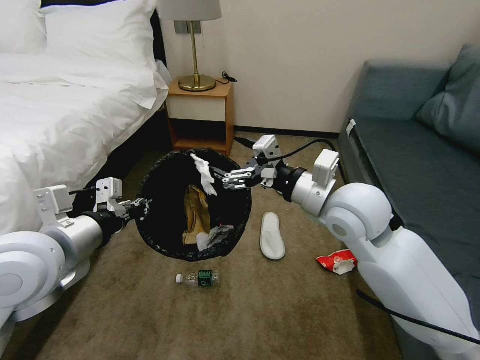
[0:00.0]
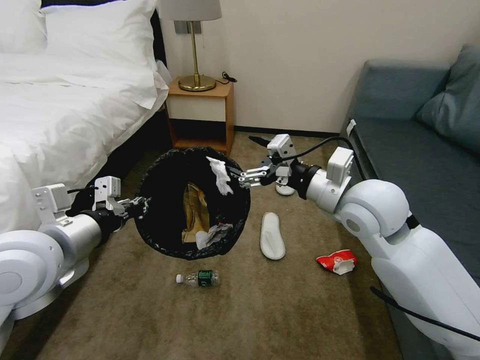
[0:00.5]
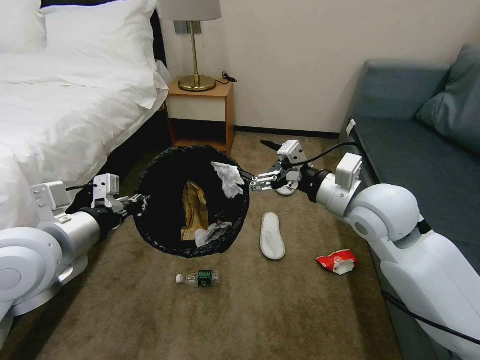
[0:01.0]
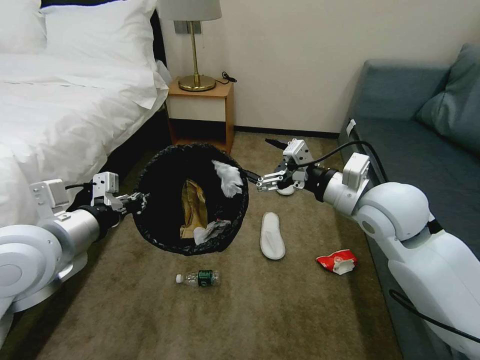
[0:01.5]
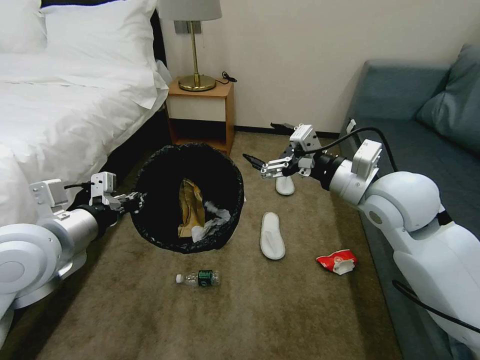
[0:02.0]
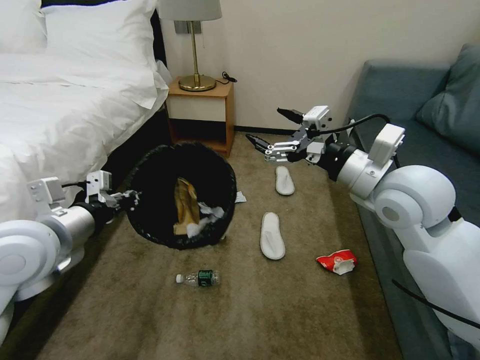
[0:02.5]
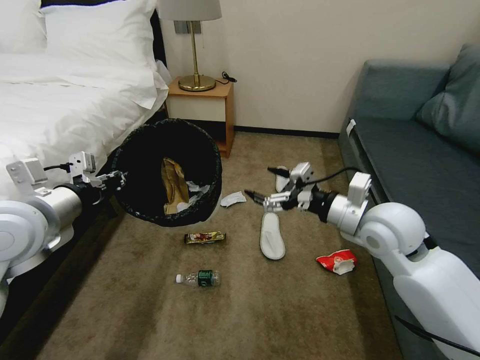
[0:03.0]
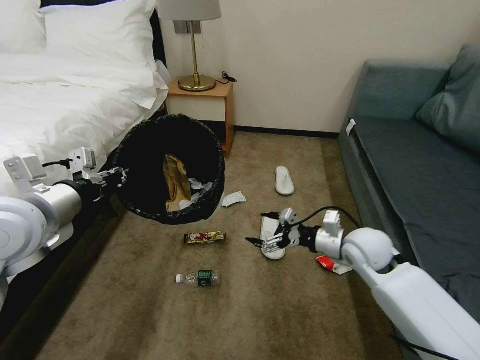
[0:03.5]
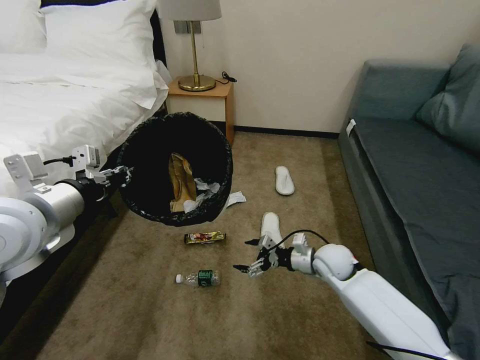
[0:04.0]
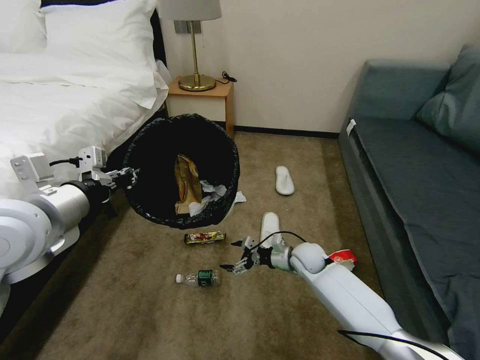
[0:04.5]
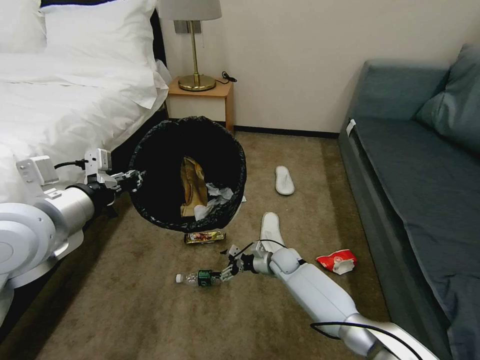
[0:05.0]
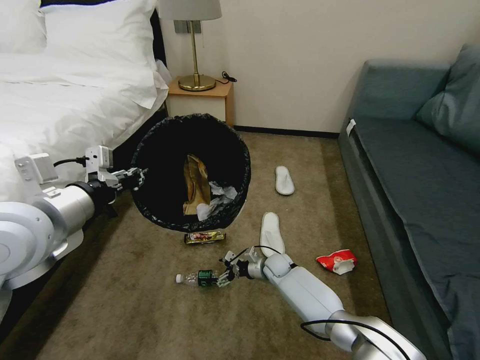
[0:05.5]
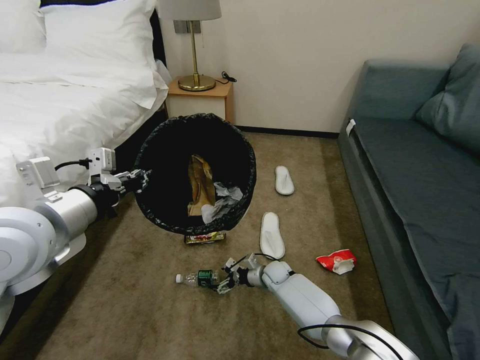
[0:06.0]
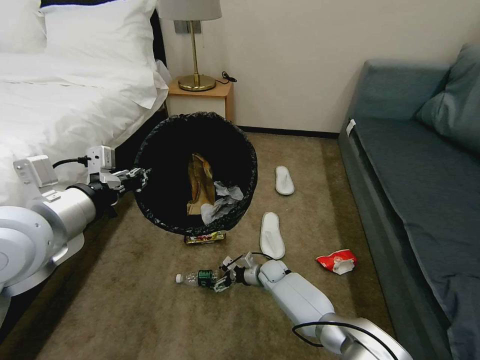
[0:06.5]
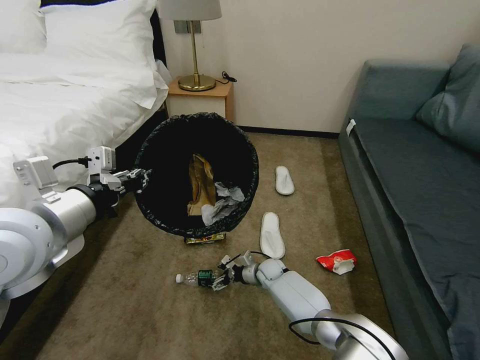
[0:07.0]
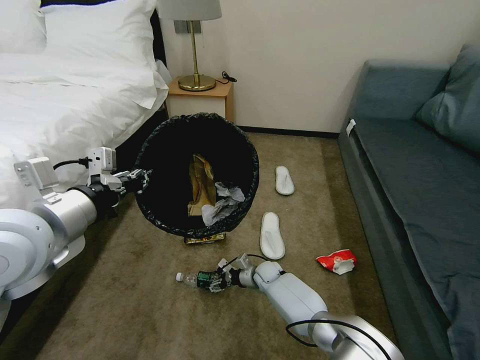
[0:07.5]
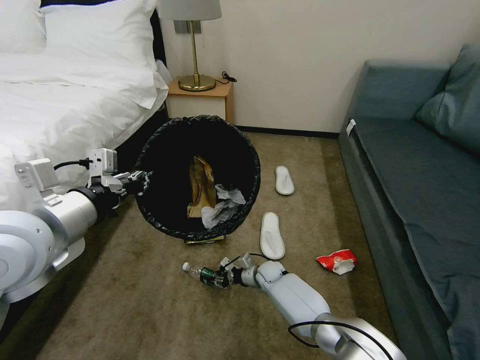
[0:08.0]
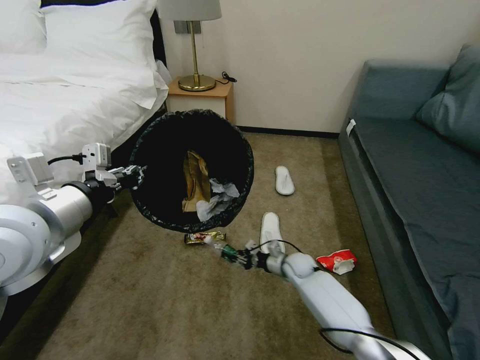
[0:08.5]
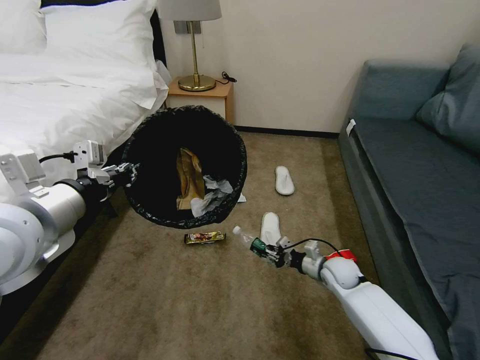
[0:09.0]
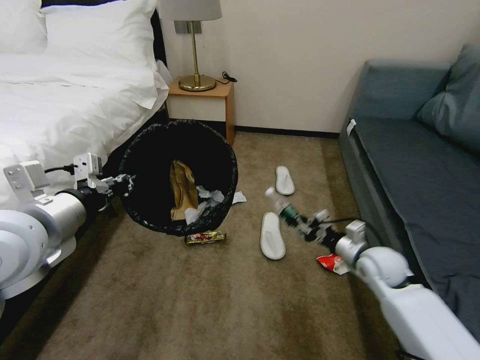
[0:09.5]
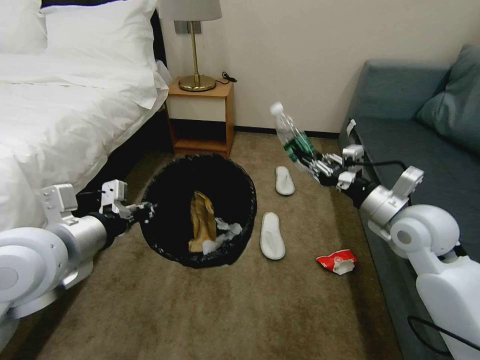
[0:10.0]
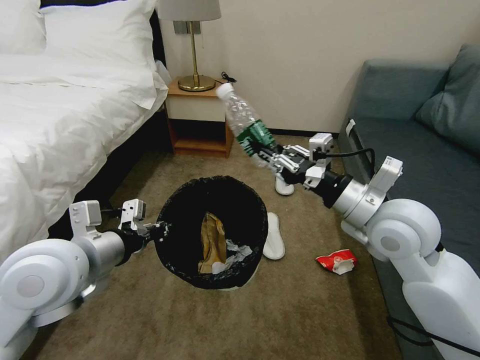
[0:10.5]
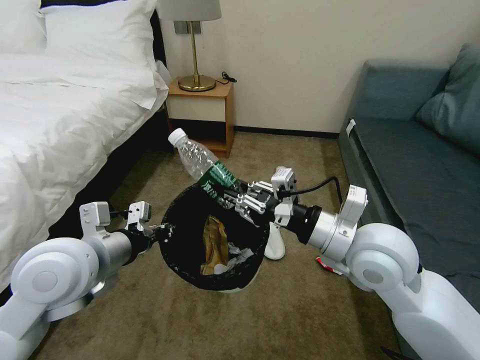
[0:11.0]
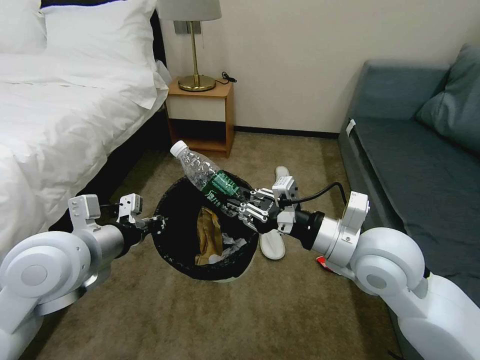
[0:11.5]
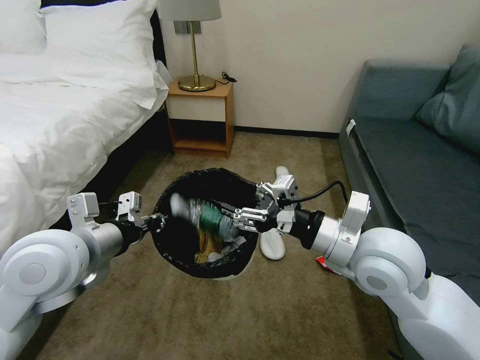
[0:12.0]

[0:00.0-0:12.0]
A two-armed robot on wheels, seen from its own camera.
Task of the whole recording: Pick up the trash bin, then pick up the garbage on the floor and place it into the trash bin.
0:00.0 to 0:02.0: The right gripper moves to the right, approximately 5 cm.
0:02.0 to 0:04.0: The right gripper goes some 30 cm downward.
0:04.0 to 0:06.0: The right gripper moves downward and to the left, roughly 20 cm.
0:06.0 to 0:08.0: The right gripper closes its fingers.
0:08.0 to 0:10.0: The right gripper moves upward and to the right, roughly 50 cm.
0:10.0 to 0:12.0: The right gripper travels to the left and backward by roughly 15 cm, and opens up.

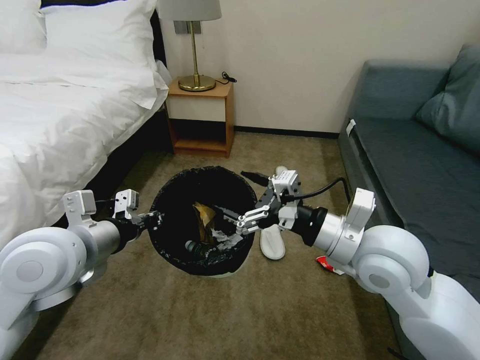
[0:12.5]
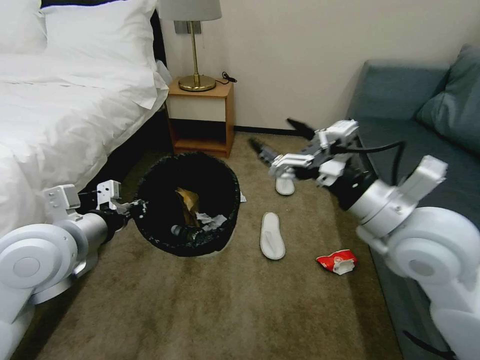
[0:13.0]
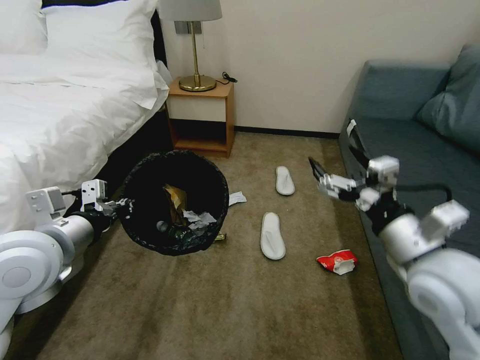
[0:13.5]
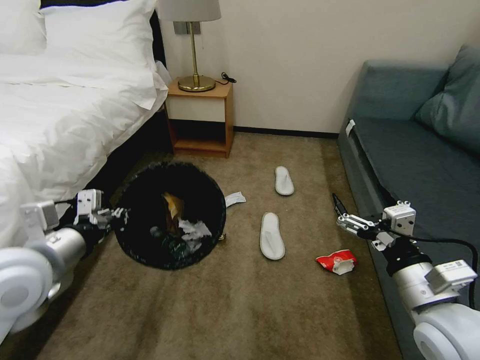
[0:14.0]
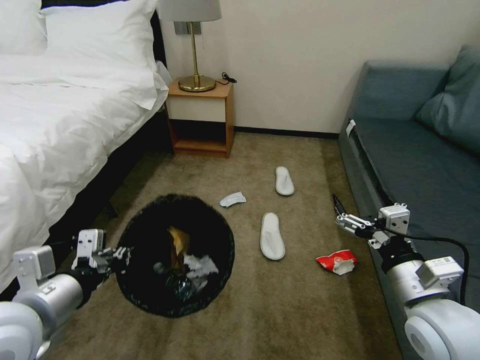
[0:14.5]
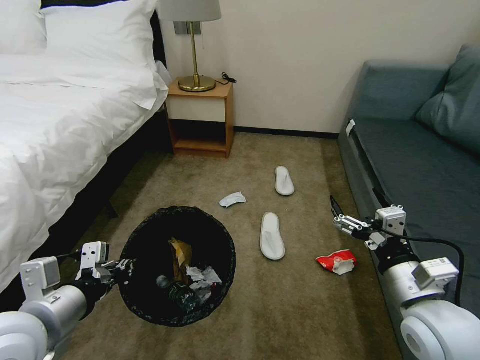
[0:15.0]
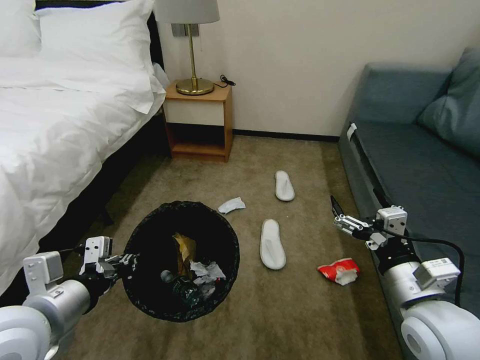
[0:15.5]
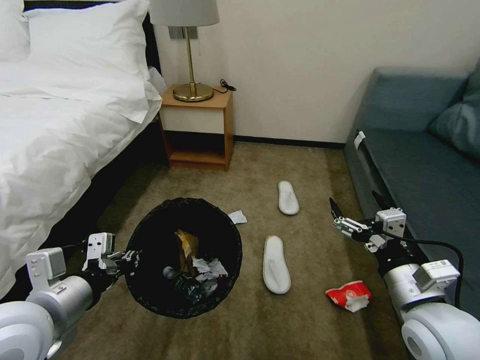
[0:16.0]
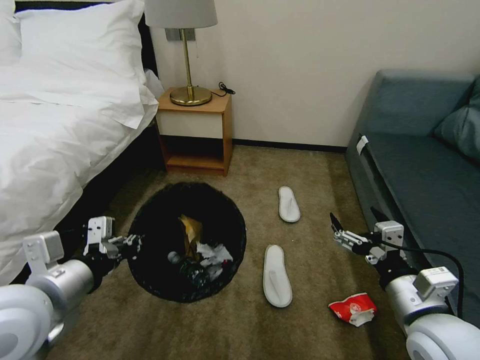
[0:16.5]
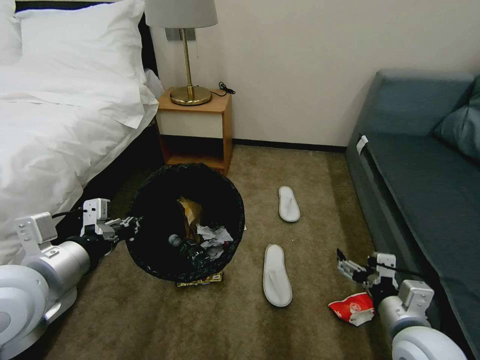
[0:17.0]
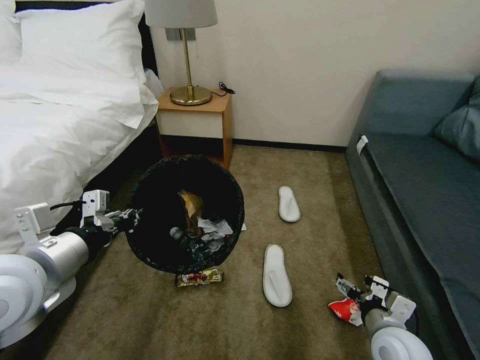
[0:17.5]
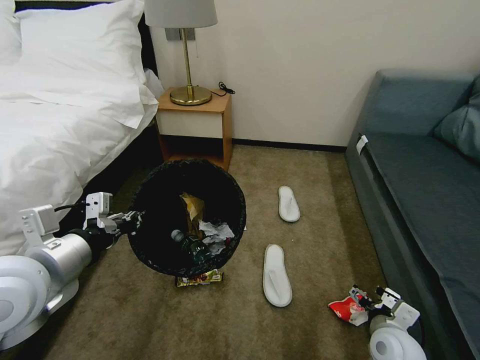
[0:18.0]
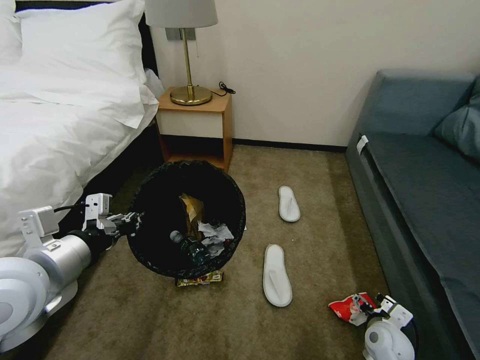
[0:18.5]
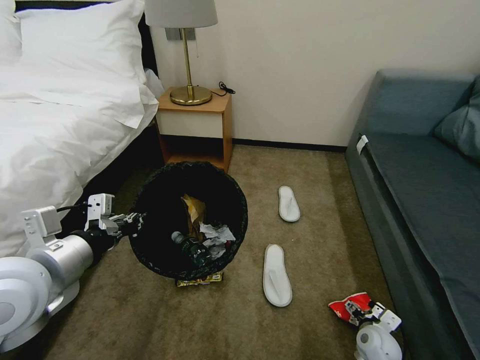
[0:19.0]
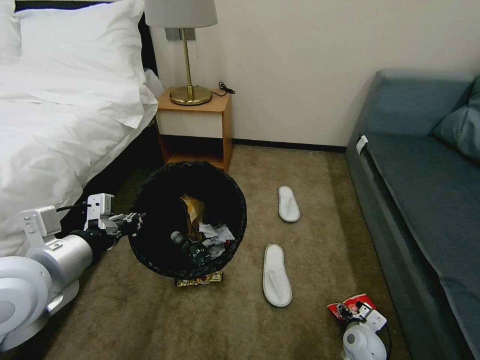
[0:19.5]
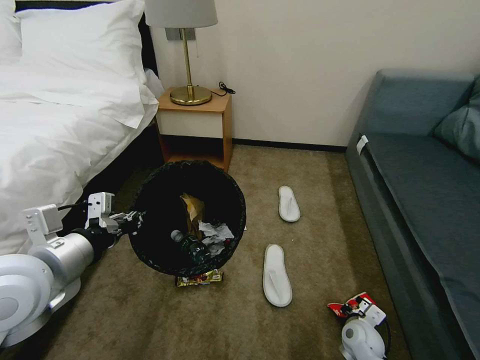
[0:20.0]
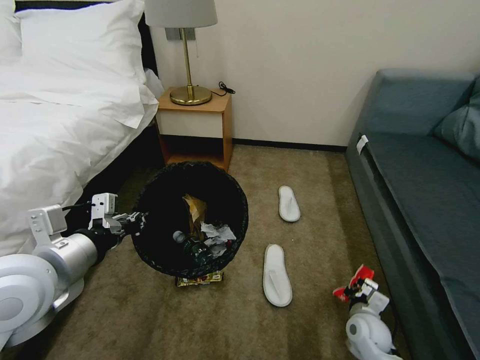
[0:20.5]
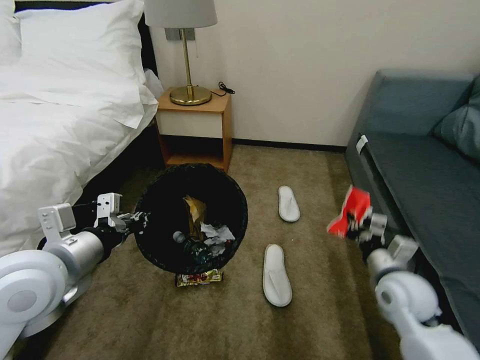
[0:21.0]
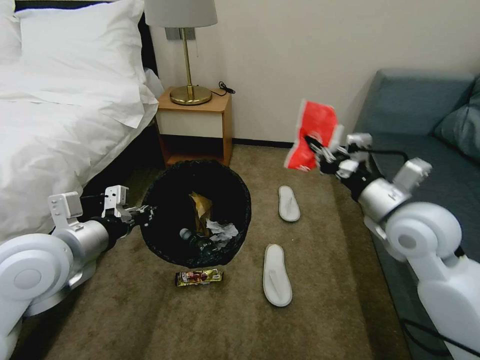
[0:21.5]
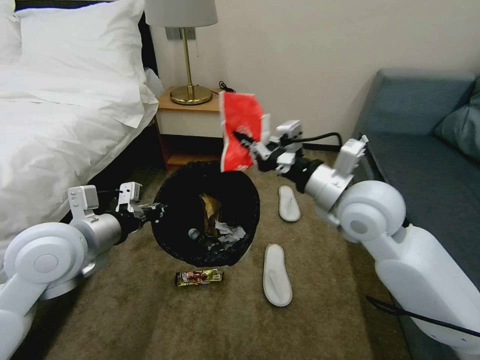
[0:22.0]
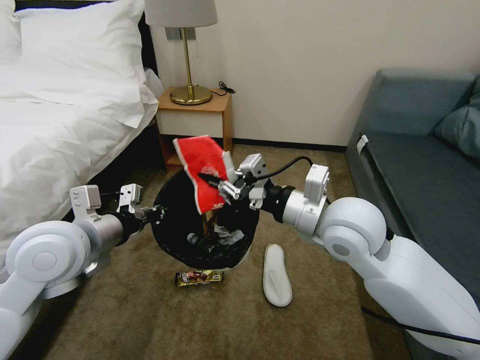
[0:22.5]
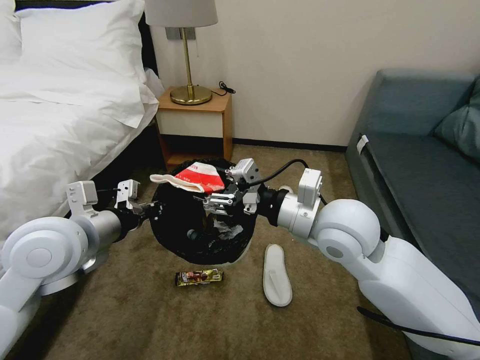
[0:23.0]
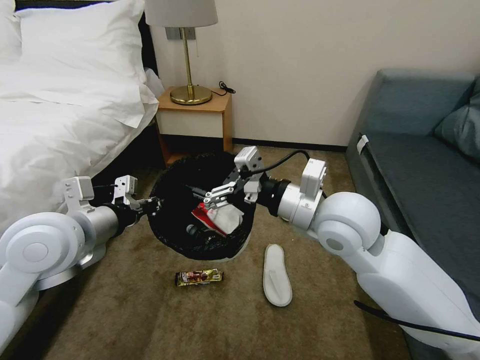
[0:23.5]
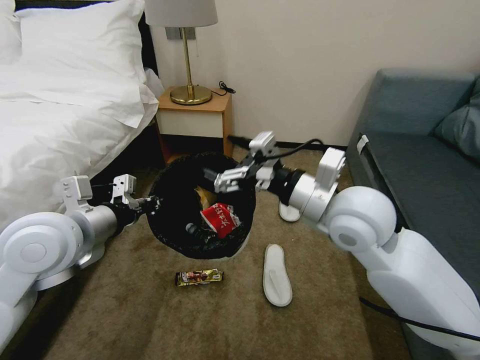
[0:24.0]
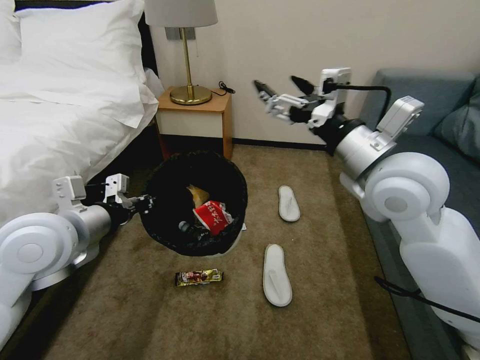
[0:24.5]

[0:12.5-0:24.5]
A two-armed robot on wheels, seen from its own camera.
Task of the whole recording: Pick up the trash bin, then pick up the garbage on the floor and place it into the trash bin.
0:12.5 to 0:14.5: The right gripper heads to the right, downward and backward, covering roughly 15 cm. The left gripper shifts about 10 cm backward.
0:16.5 to 0:18.5: The right gripper heads downward, covering approximately 25 cm.
0:18.5 to 0:20.5: The right gripper closes up.
0:20.5 to 0:22.5: The left gripper heads forward, covering roughly 5 cm; the right gripper moves upward and to the left, roughly 40 cm.
0:22.5 to 0:24.5: The right gripper goes roughly 10 cm upward and to the right, and opens its fingers.

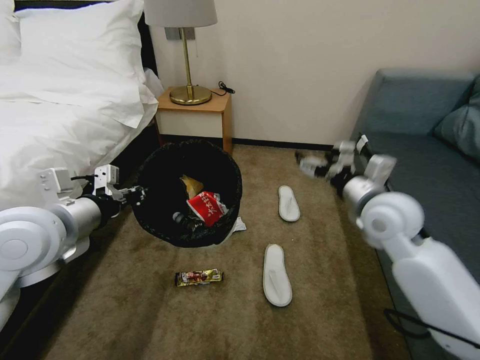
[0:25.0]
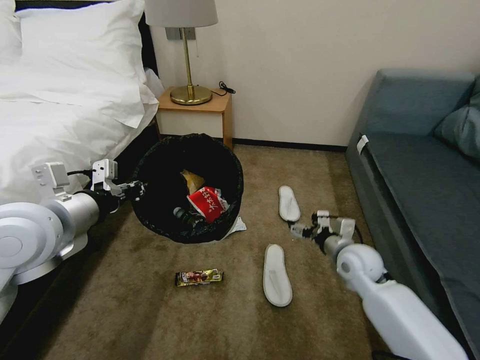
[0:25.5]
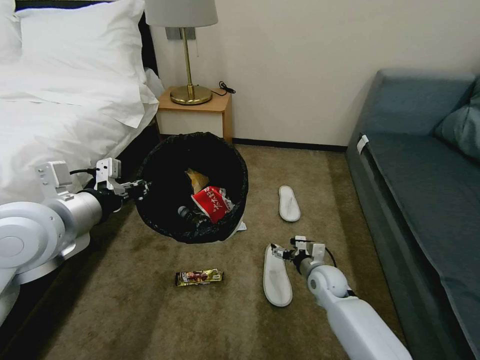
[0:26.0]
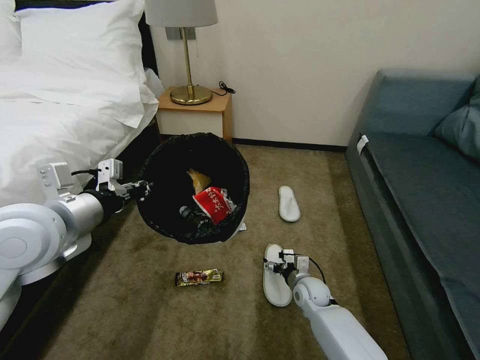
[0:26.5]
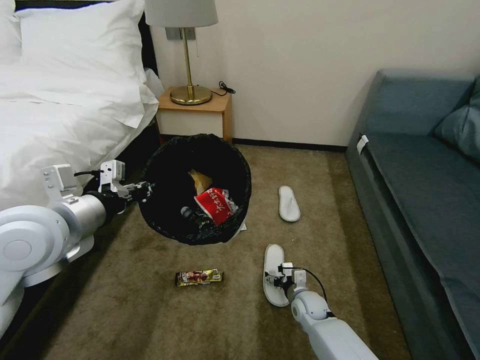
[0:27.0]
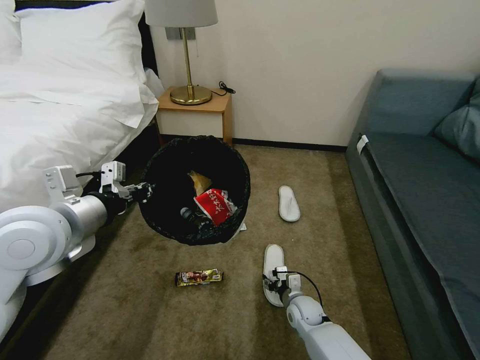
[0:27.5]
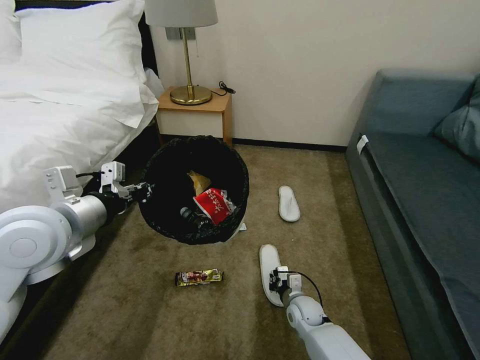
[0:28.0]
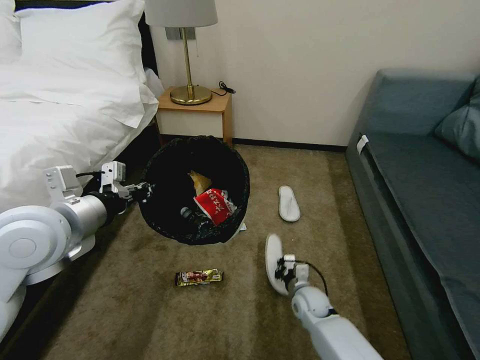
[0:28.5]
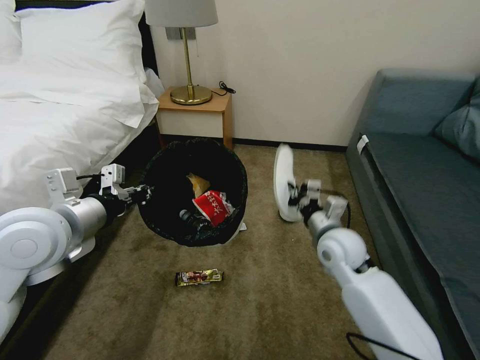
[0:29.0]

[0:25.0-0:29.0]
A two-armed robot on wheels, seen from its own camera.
Task of the whole recording: Pick up the trash bin, then pick up the garbage on the floor and place it into the trash bin.
0:25.0 to 0:27.0: The right gripper is displaced downward by approximately 40 cm.
0:27.0 to 0:29.0: The right gripper shifts roughly 25 cm upward, and closes its fingers.
